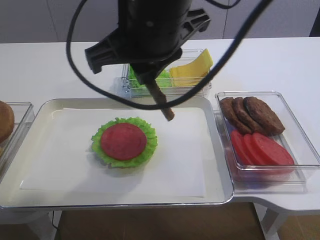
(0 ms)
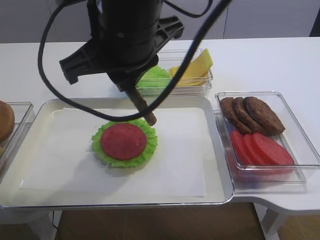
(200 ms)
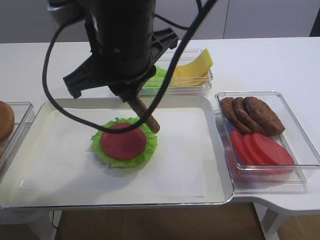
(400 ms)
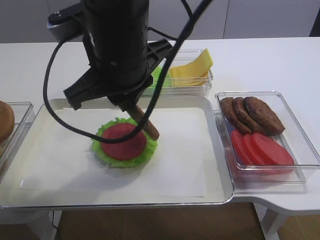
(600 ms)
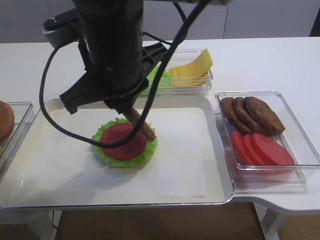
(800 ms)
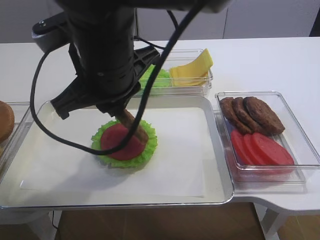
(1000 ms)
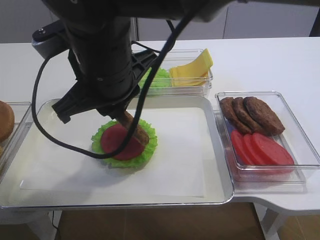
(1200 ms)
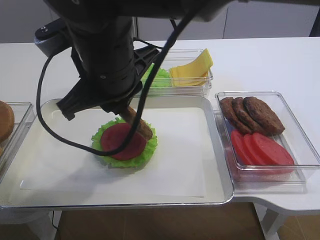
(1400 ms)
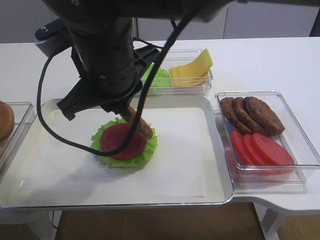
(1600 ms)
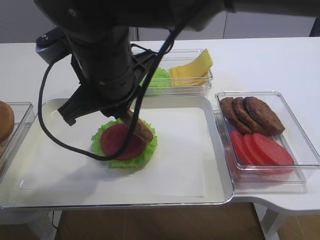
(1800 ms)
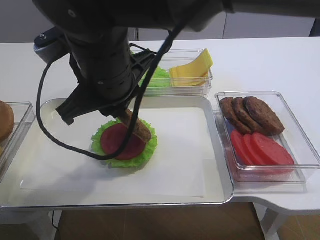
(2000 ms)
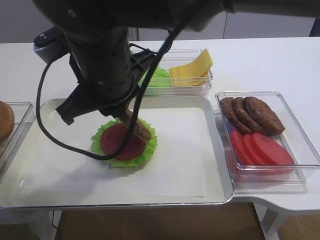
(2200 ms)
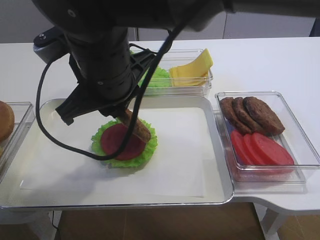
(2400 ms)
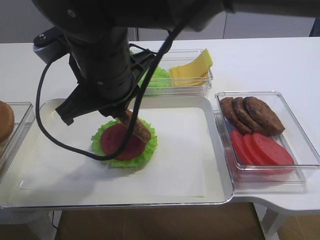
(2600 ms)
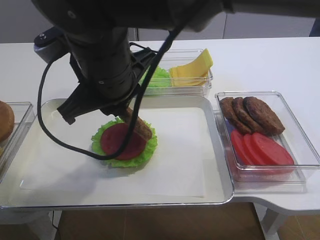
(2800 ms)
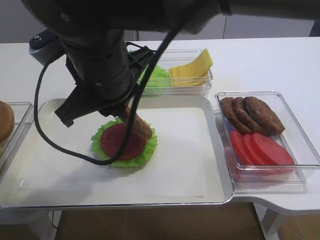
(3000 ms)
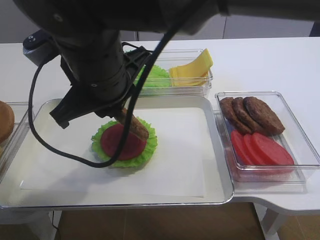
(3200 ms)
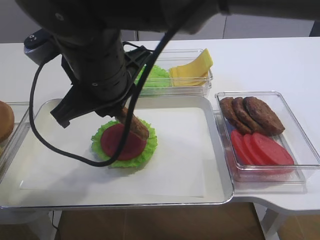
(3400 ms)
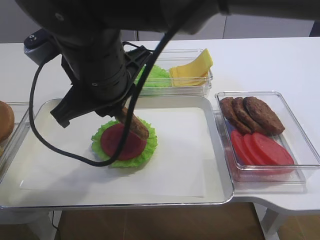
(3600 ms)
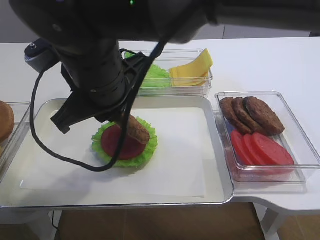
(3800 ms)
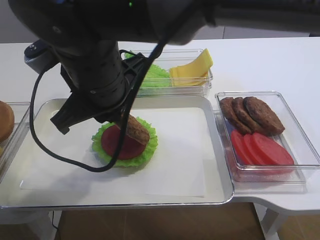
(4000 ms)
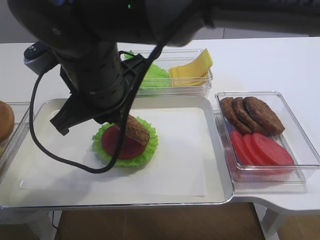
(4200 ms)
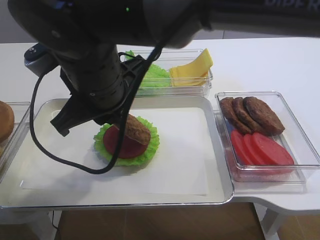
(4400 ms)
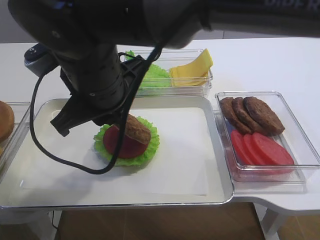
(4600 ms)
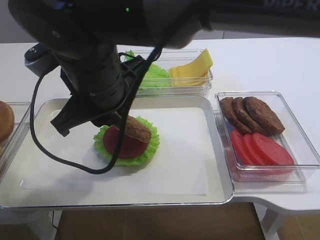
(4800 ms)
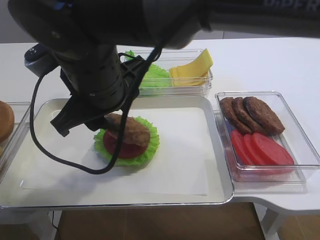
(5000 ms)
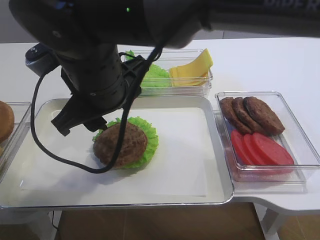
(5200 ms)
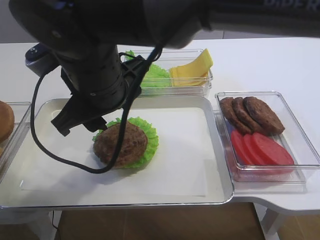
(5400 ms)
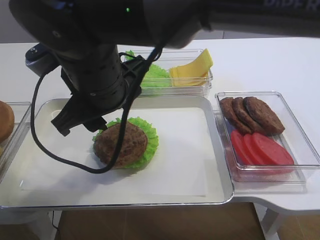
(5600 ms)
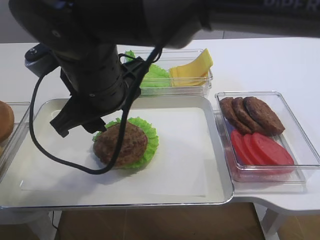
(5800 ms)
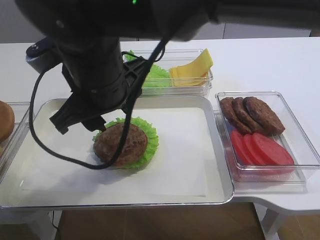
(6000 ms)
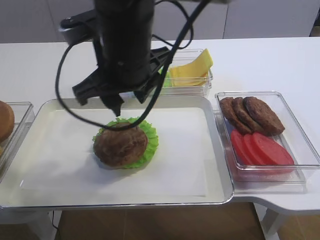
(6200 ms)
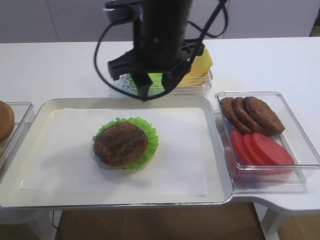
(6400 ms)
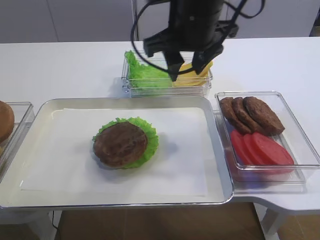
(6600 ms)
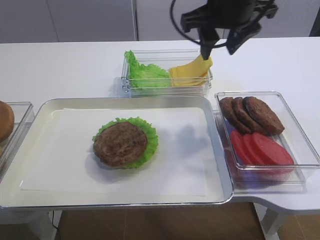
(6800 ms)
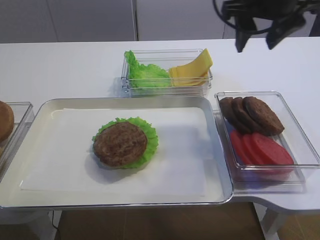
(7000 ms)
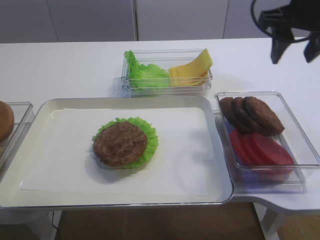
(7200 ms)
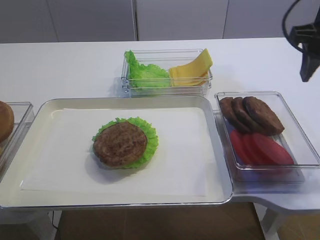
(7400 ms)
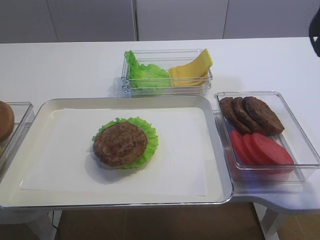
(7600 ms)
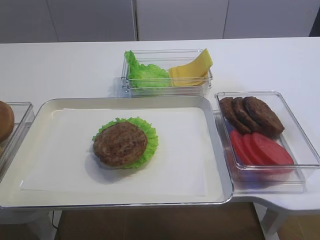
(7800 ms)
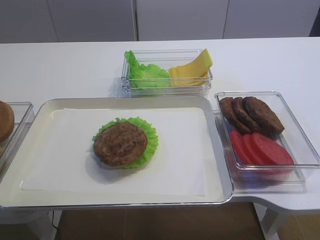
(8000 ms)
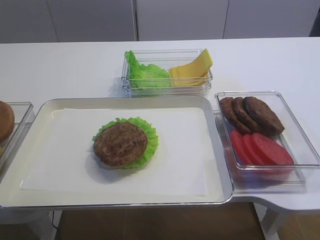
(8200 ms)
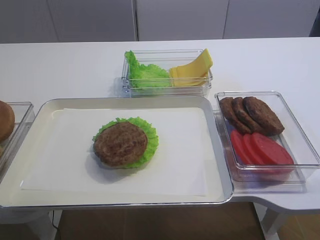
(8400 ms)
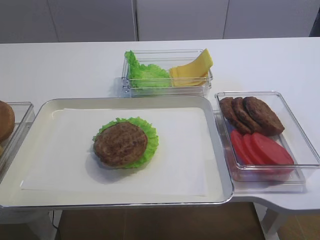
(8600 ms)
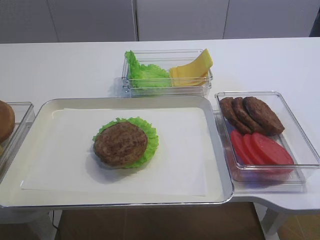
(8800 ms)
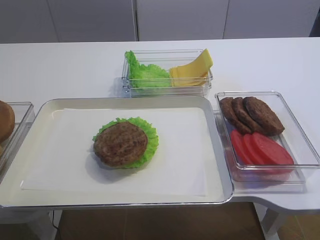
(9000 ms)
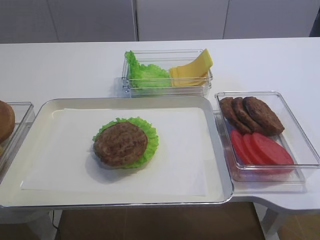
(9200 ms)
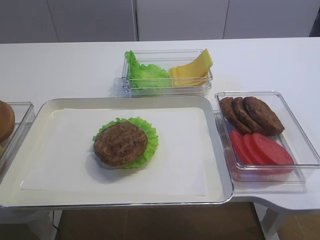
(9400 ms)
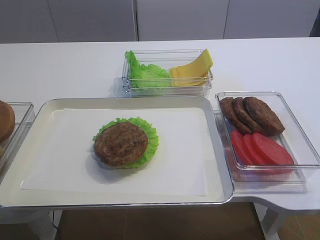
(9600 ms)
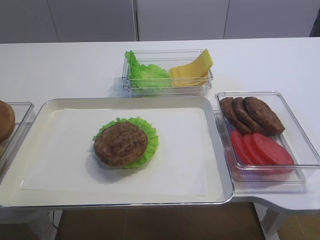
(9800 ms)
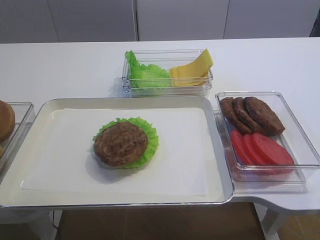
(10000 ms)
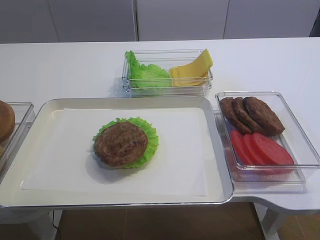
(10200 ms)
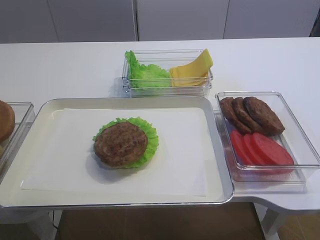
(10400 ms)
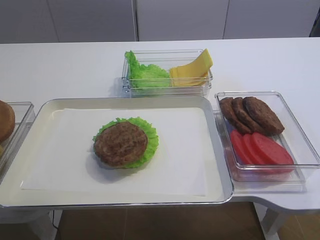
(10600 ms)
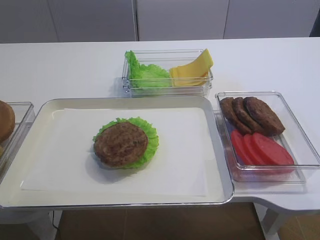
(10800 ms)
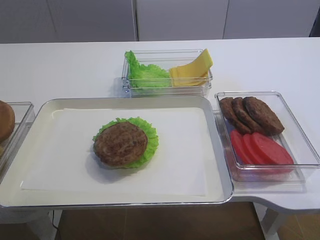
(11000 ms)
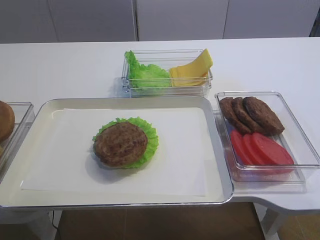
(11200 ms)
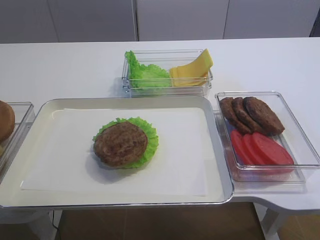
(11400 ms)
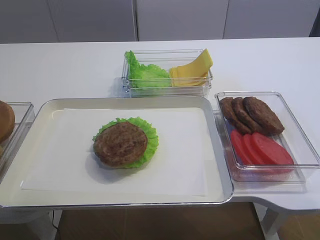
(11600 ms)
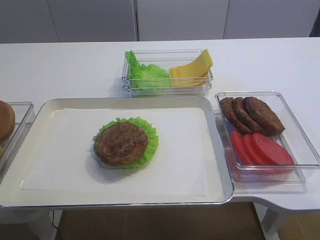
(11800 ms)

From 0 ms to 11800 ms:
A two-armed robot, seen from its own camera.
Step, from 0 ms to 5000 ms: Place the cutlet on the tomato slice with the right gripper.
From 0 ms to 1400 ms: The right gripper moves to the left and downward, some 10 cm.
From 1400 ms to 3000 ms: Both grippers stay about where they are.
From 3000 ms to 4400 ms: Neither gripper changes place.
From 4400 ms to 6000 ms: The right gripper opens.
From 6000 ms to 7400 ms: The right gripper travels to the right by about 30 cm.
From 7400 ms to 8800 ms: The right gripper is displaced backward by approximately 30 cm.

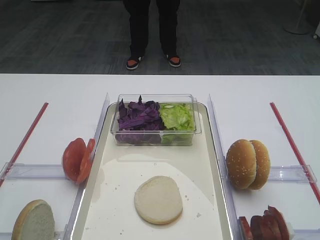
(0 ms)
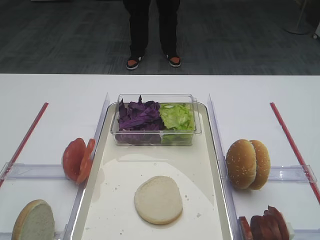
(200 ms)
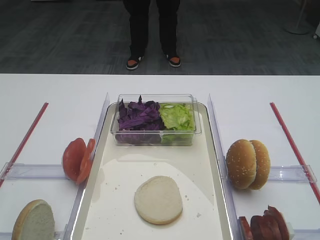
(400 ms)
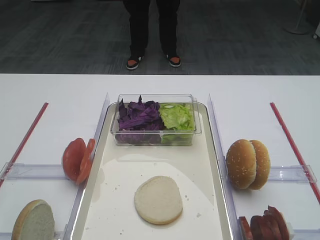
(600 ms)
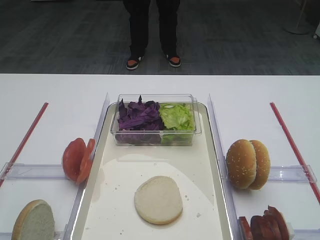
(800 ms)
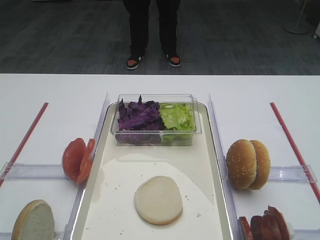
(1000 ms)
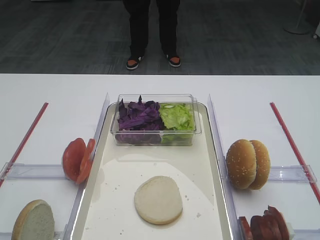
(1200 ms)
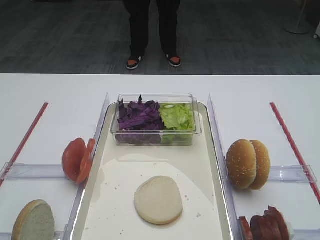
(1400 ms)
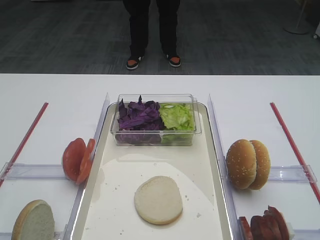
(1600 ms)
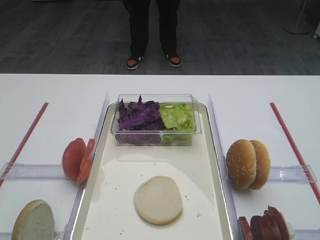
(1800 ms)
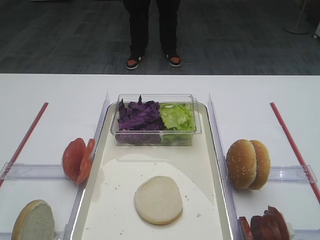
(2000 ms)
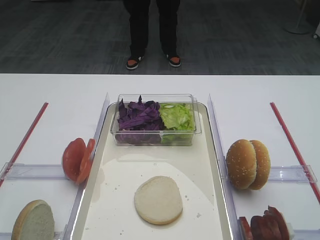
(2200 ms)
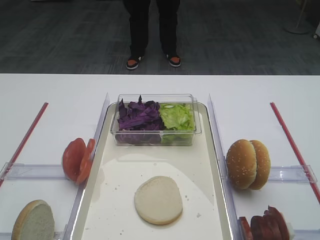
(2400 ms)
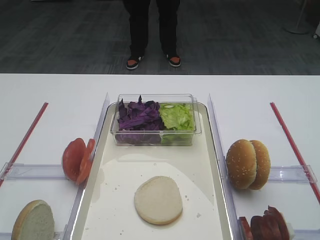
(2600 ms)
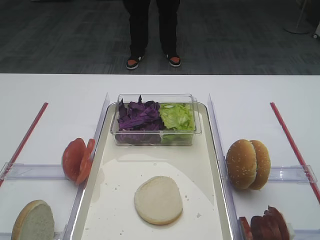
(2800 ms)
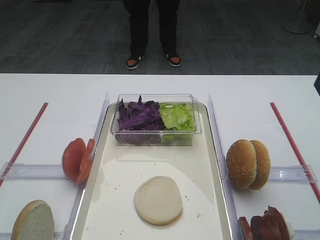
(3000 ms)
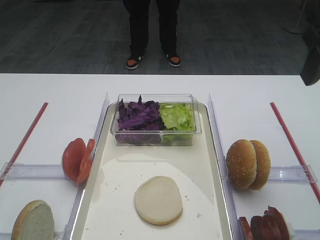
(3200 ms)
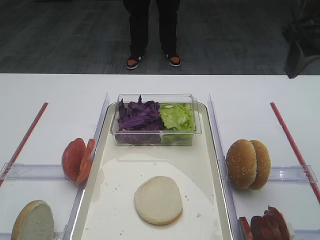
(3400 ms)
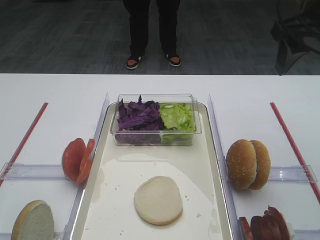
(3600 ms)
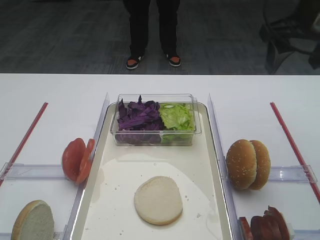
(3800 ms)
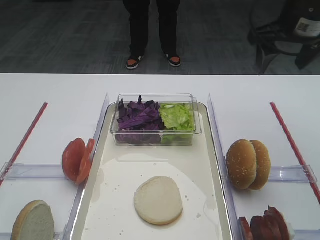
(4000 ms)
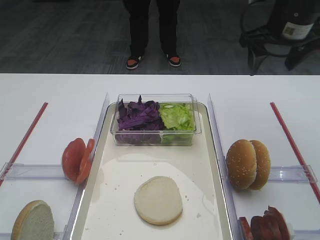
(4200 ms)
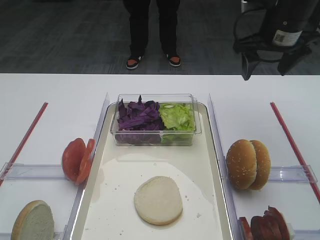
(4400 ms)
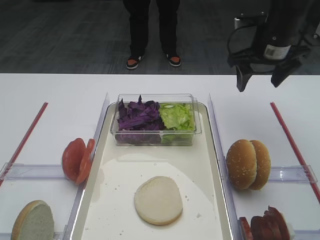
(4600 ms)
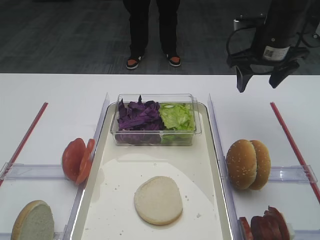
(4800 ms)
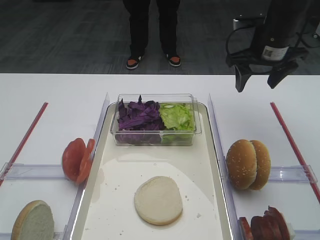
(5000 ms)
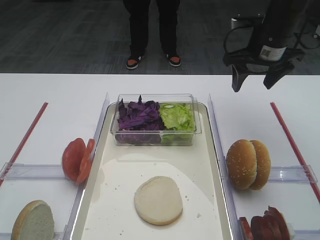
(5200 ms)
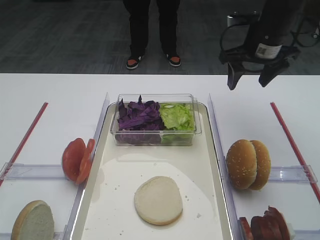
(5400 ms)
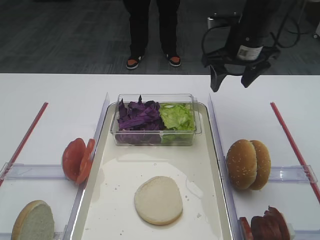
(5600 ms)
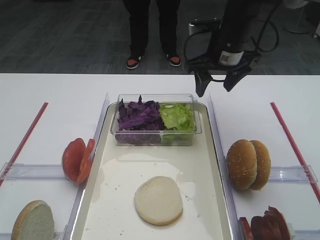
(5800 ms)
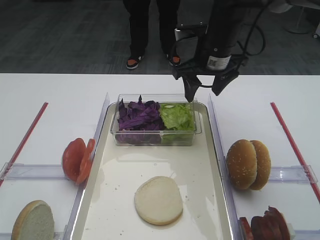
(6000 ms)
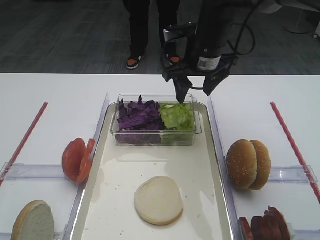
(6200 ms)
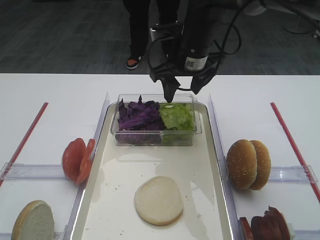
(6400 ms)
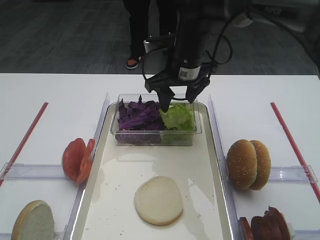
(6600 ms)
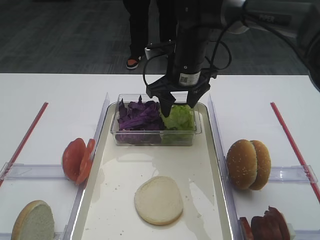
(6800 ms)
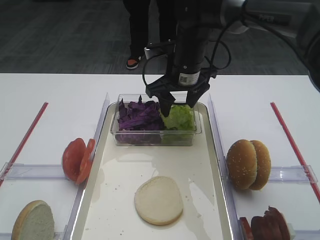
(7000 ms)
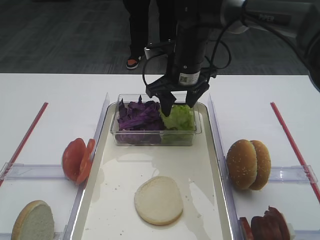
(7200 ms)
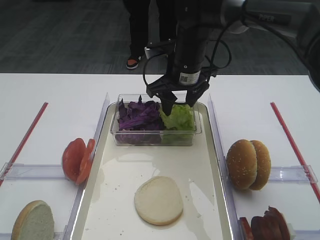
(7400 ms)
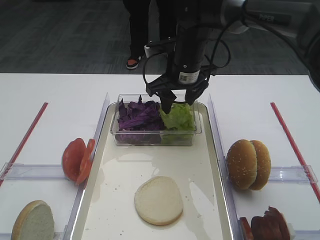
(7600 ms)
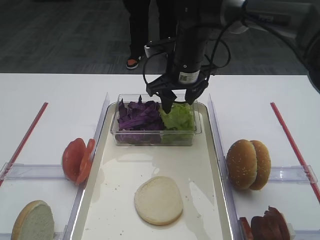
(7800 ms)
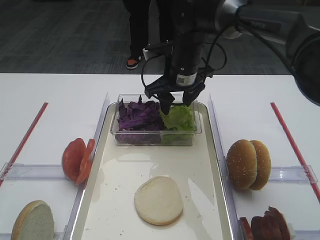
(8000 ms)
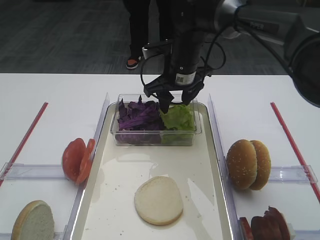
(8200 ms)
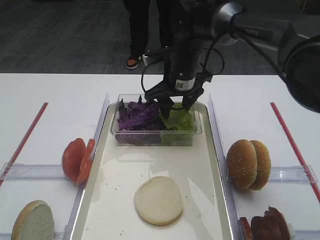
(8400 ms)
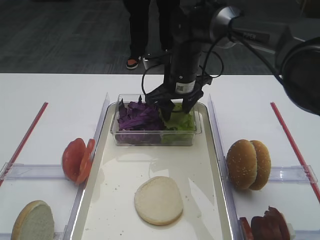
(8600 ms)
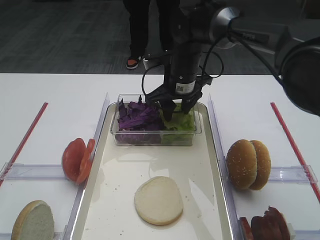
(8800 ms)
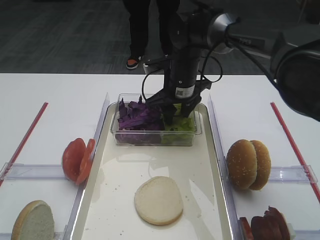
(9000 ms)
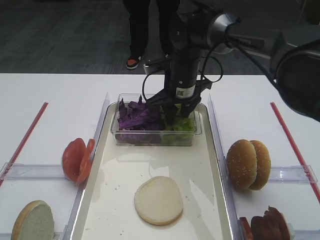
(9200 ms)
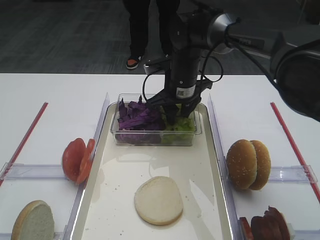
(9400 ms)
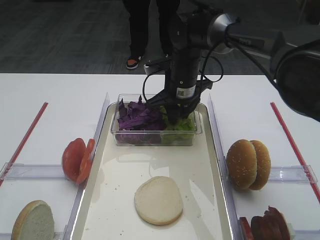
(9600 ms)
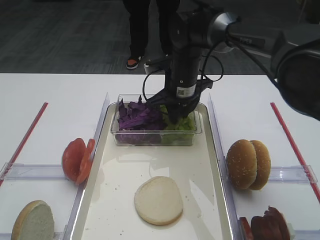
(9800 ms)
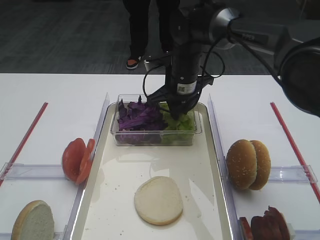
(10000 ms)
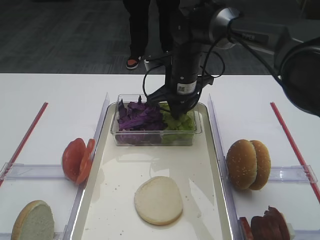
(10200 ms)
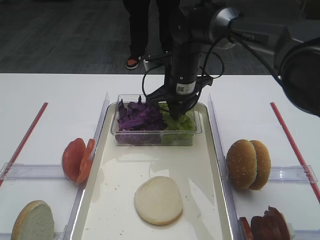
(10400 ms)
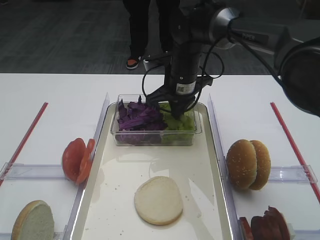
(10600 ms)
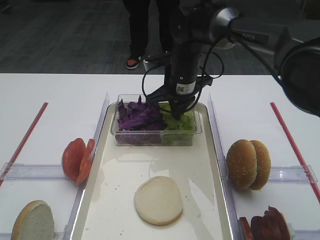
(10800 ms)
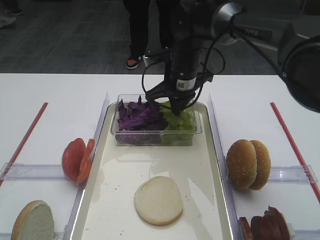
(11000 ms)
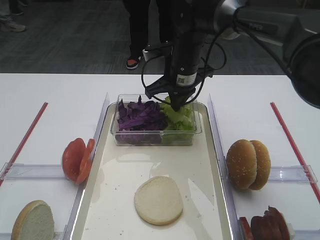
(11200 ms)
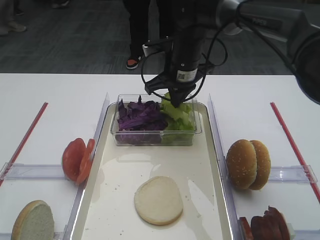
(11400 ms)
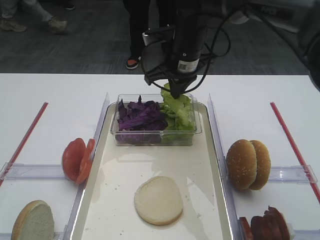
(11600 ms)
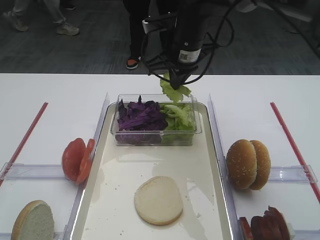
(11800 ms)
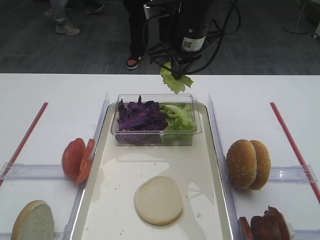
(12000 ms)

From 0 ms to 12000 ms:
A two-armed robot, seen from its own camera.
Step, from 0 ms to 11200 ms: Pick up the lettuce leaf with the right gripper.
From 3000 ms to 4400 ms: The right gripper shifts approximately 20 cm forward.
From 4400 ms to 6000 ms: The right gripper heads to the left, covering approximately 10 cm.
From 6000 ms to 7600 ms: The right gripper travels to the left by roughly 5 cm.
From 7600 ms to 9000 ms: The grippers make only small movements.
From 9000 ms to 10400 ms: Both grippers stay about where they are.
From 10400 ms to 12000 ms: The right gripper moves upward, roughly 10 cm.
